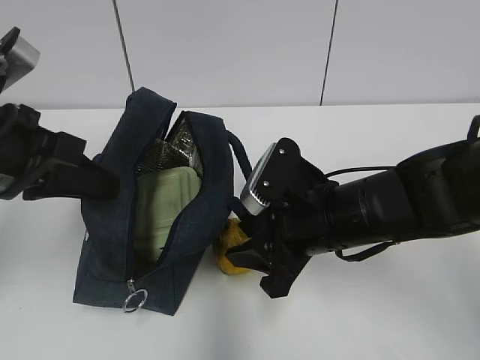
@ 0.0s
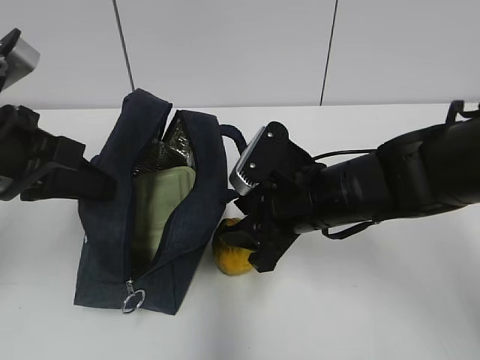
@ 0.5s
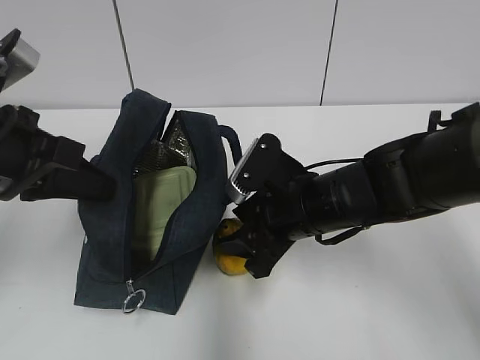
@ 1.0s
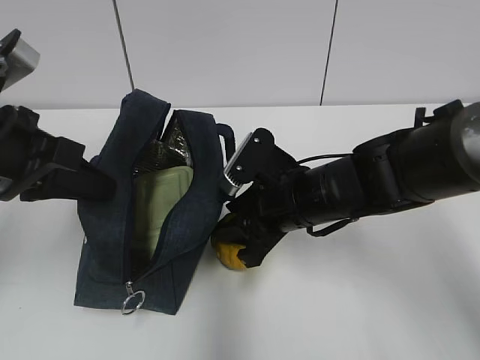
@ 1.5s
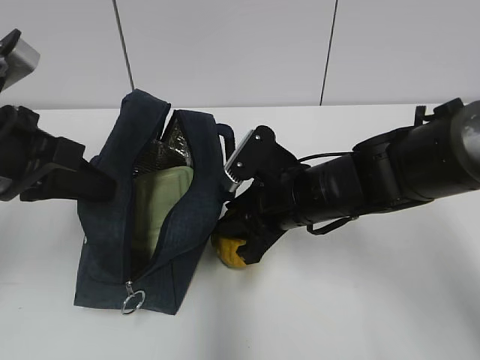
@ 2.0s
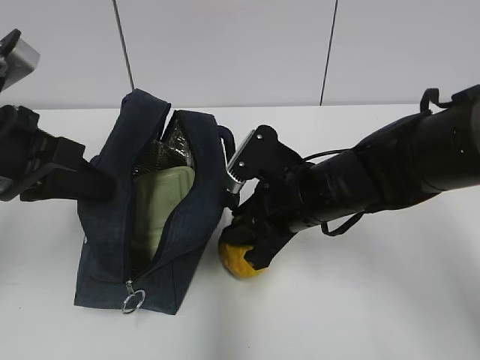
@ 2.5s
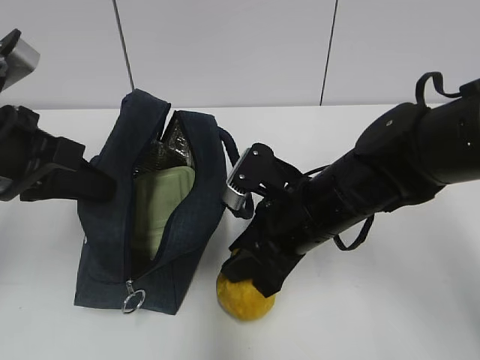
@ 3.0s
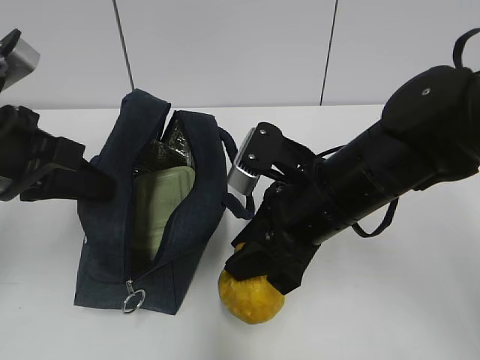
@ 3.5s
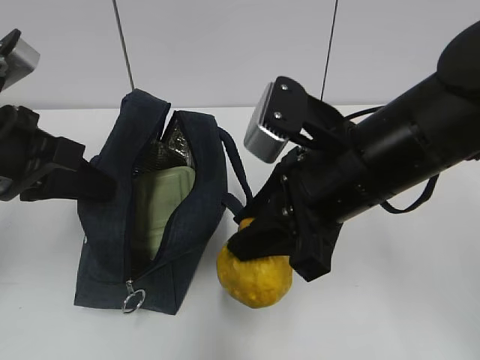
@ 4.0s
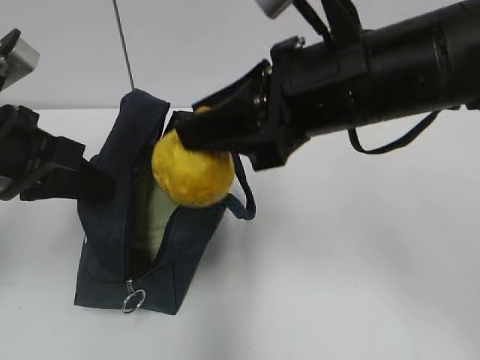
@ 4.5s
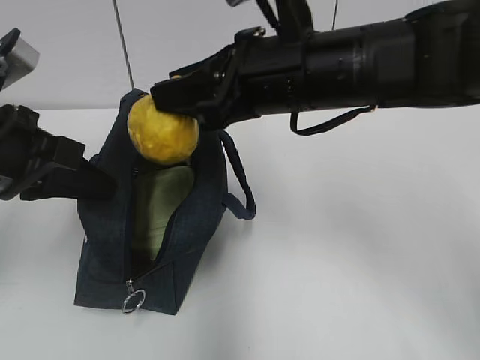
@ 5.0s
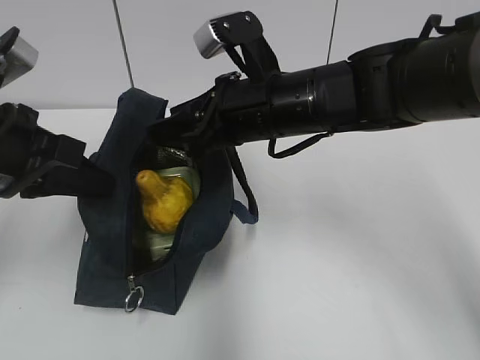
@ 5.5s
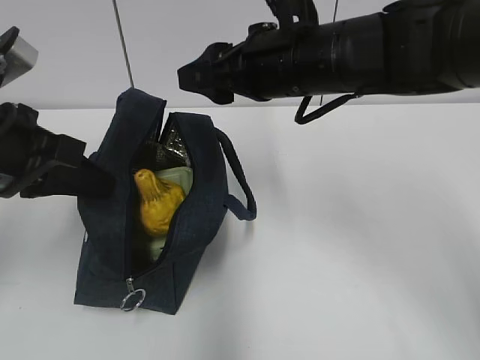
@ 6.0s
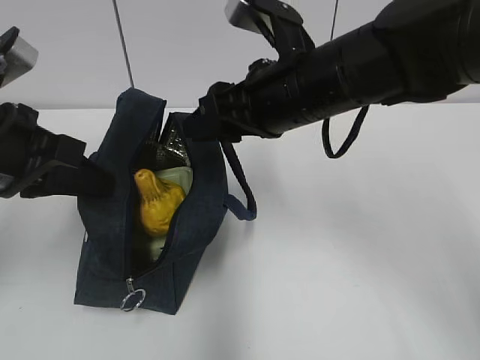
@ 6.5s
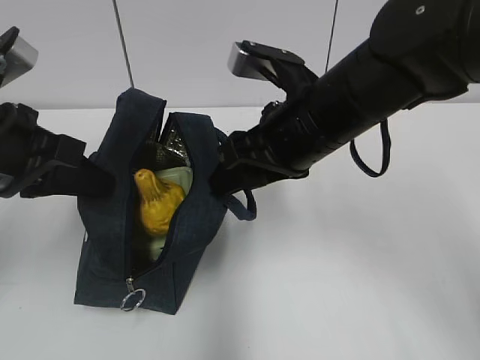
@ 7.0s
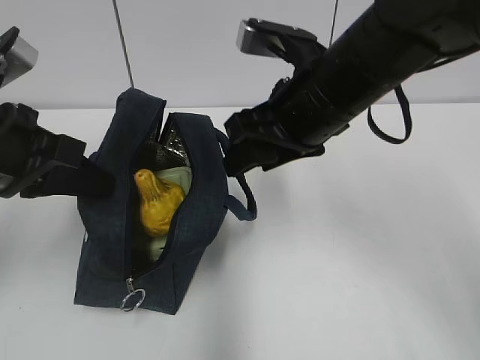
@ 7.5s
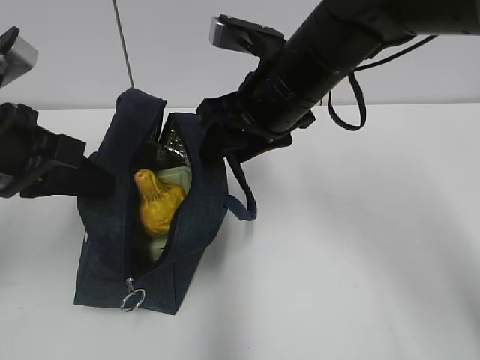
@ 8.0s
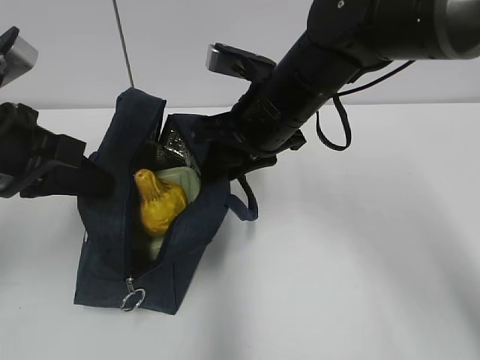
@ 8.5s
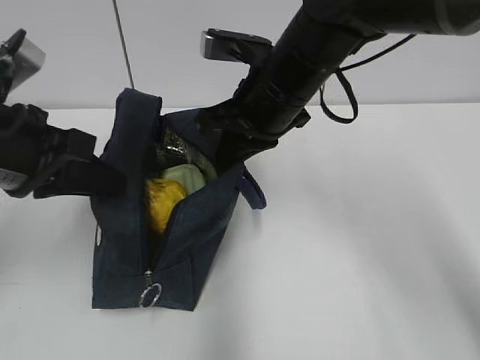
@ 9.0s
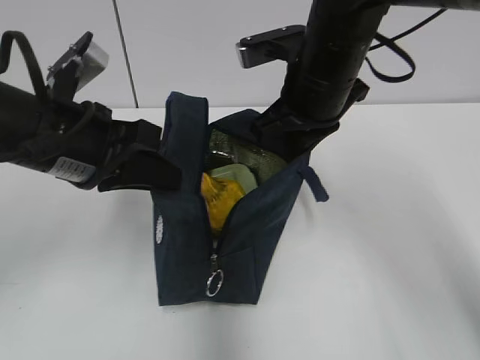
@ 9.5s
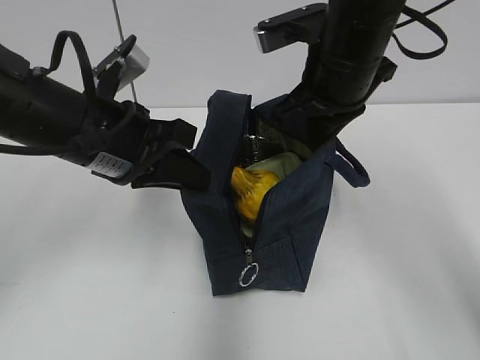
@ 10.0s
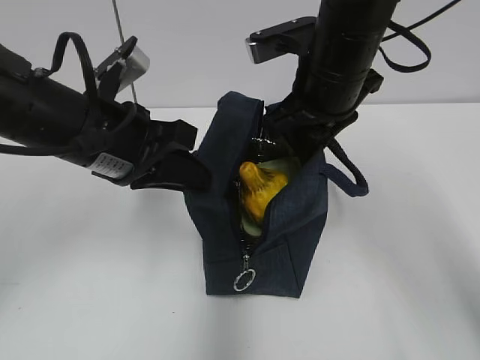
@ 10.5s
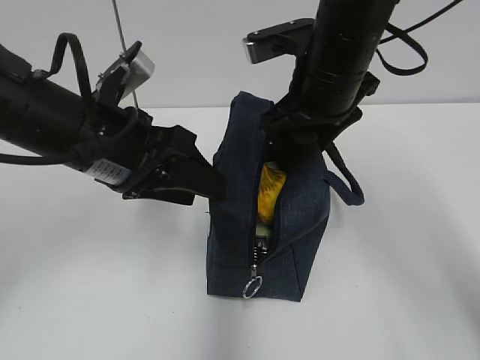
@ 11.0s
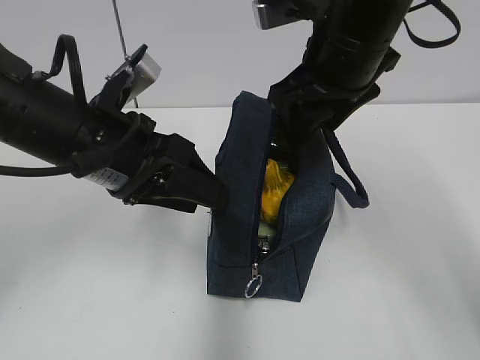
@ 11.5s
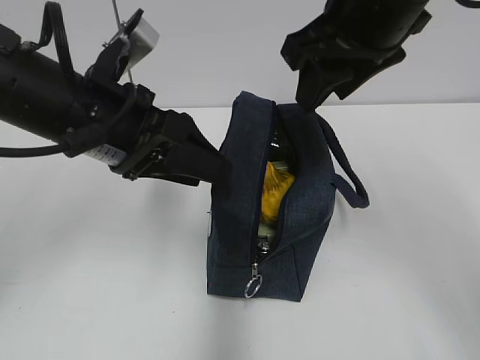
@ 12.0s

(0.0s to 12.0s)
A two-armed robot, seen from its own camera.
Step, 0.0s - 2.0s: Grab the pear with your right hand.
Step, 6.0s - 9.0s: Grab the lunch bag with your right hand.
Step, 9.5s - 10.5s: Move the lunch bag to the right.
0.0s - 2.0s: The right gripper changes place by approximately 5 cm.
2.0s - 4.0s: The right gripper shifts roughly 15 cm upward and backward.
4.0s - 6.0s: The right gripper is displaced forward by about 10 cm.
8.0s - 10.0s: The right gripper ends up some 5 cm from where it was, and closes up. Meanwhile the left gripper is displaced to the right by some 10 cm.
10.0s - 12.0s: The left gripper opens; the right gripper goes roughly 5 cm upward, and opens.

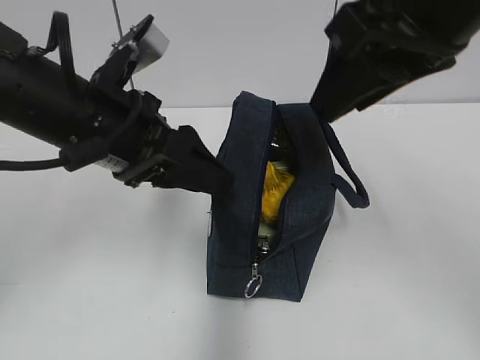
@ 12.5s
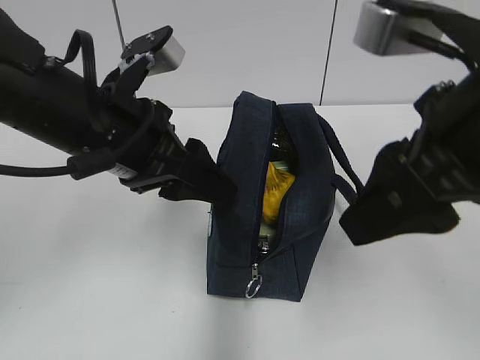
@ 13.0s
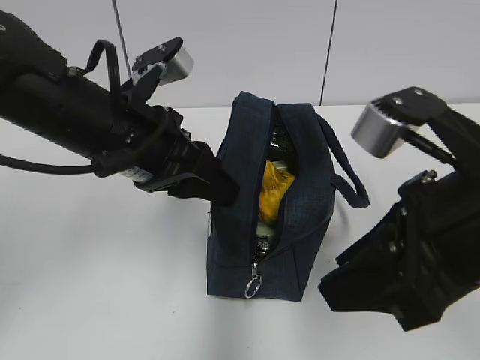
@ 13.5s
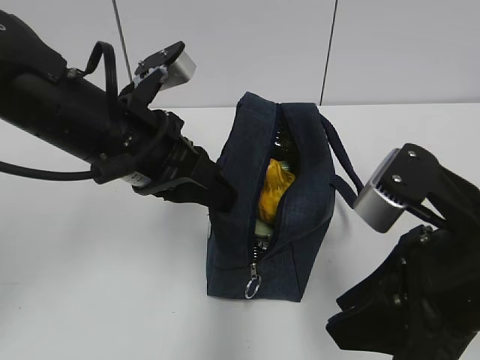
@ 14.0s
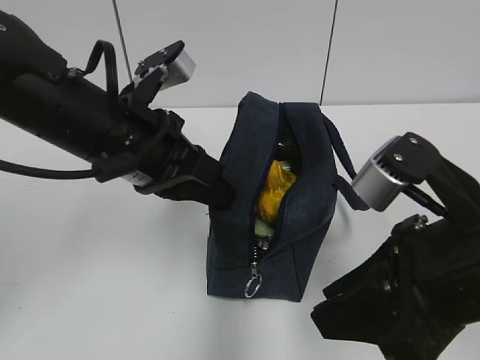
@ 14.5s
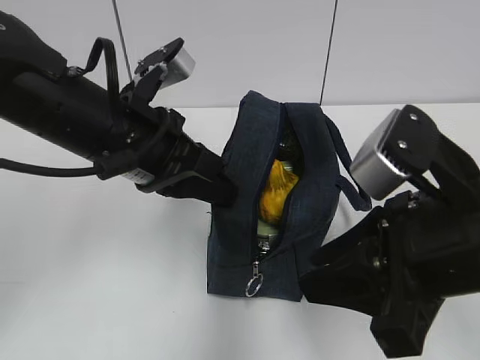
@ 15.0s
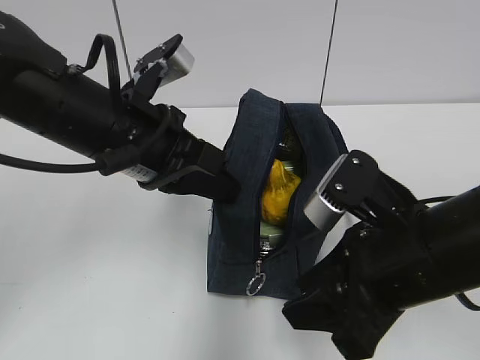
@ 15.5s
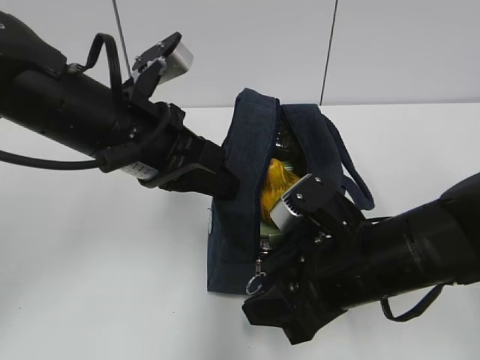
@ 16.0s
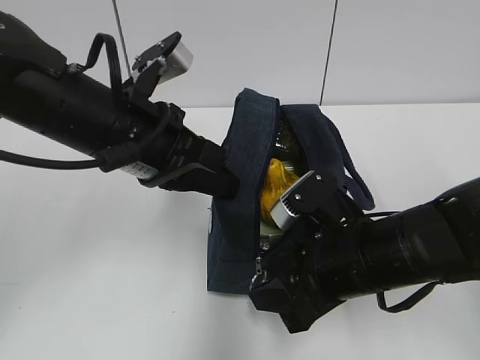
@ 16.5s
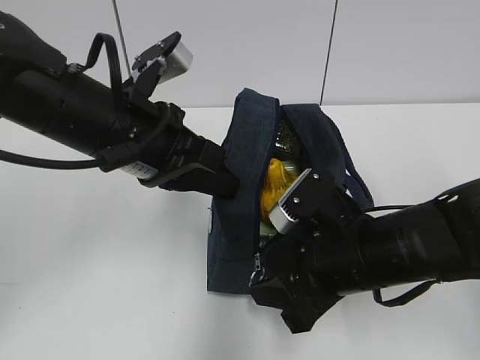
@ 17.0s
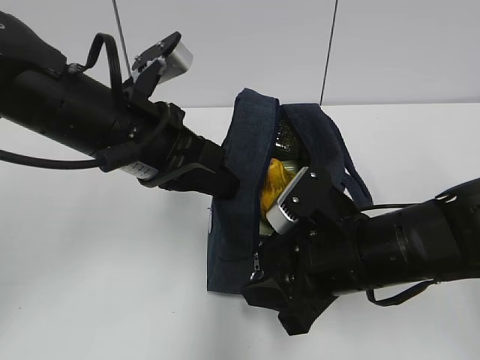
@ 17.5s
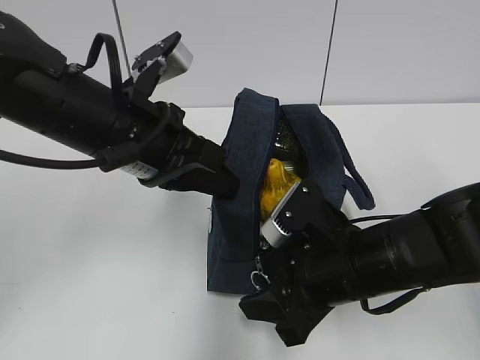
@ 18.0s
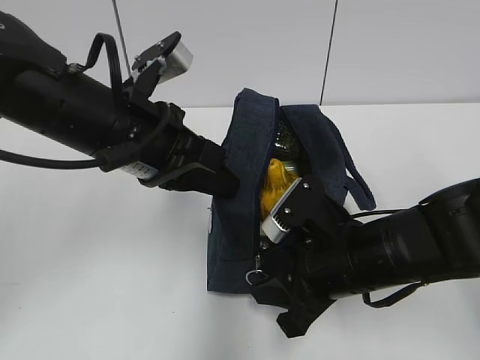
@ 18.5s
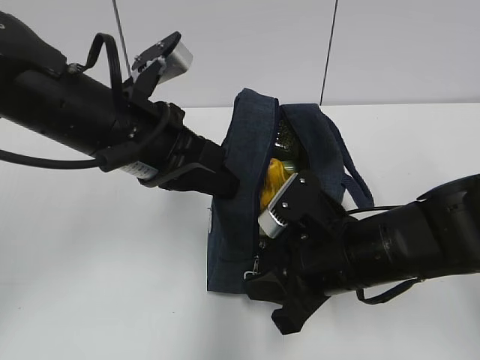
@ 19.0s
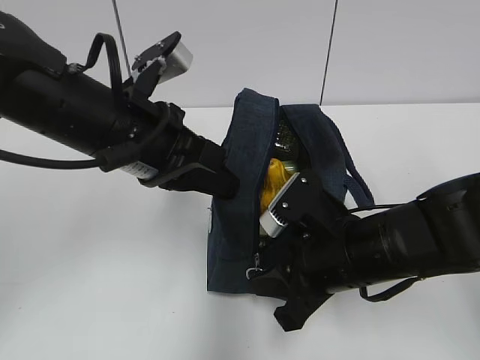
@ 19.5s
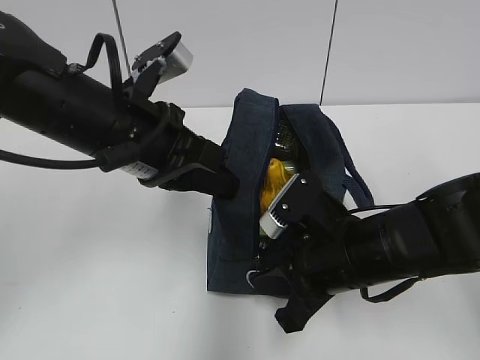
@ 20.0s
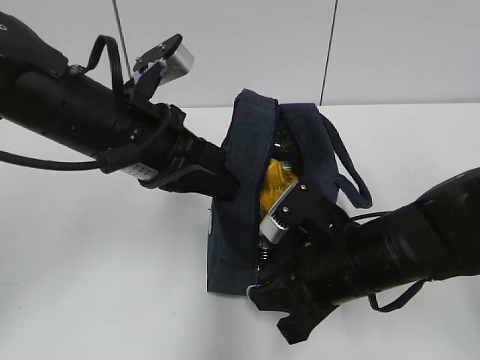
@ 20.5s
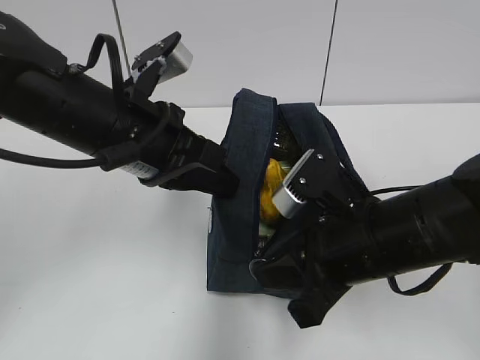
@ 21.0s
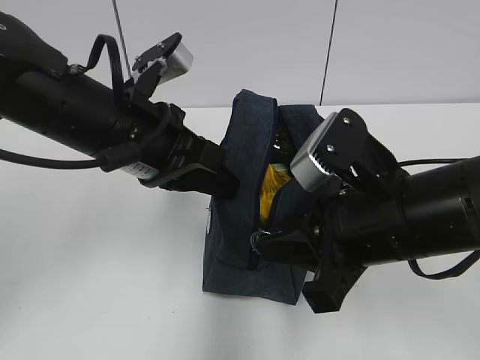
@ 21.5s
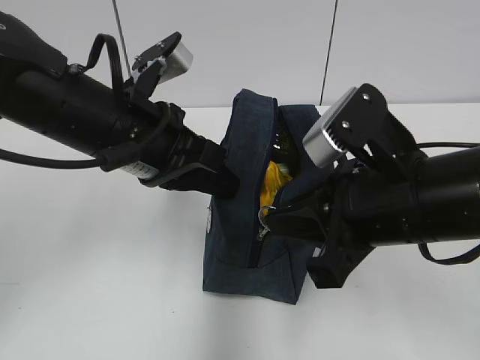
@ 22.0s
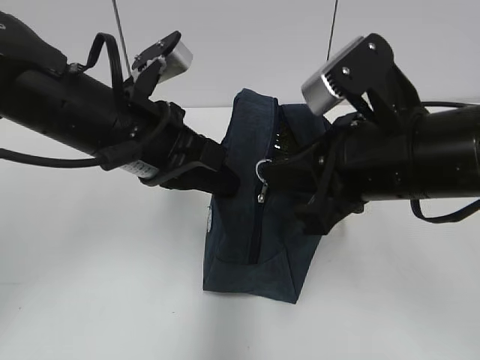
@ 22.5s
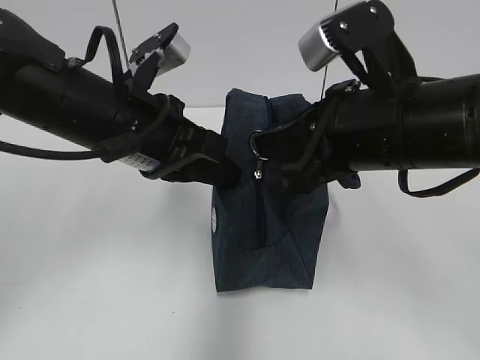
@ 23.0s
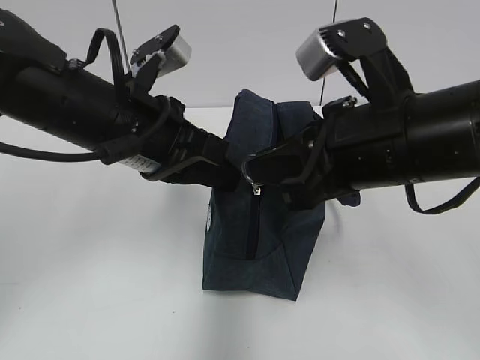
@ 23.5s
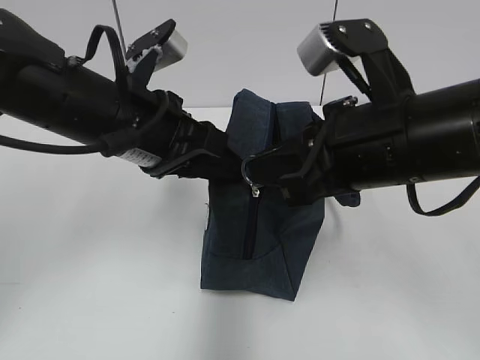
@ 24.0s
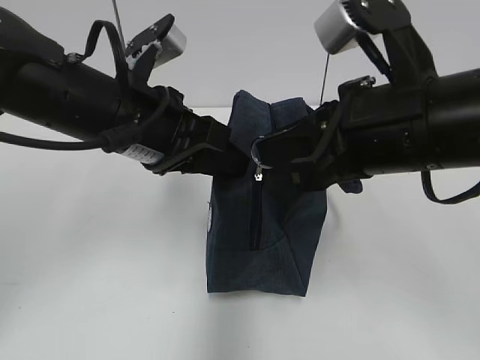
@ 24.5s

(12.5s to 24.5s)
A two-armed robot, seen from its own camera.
12.5s - 14.5s: The left gripper closes up; the right gripper is displaced downward and backward by about 15 cm.
14.5s - 16.5s: The right gripper heads downward and forward, covering roughly 10 cm.
16.5s - 18.5s: The grippers stay close to where they were, moving slightly.
18.5s - 20.5s: The right gripper closes up.
20.5s - 22.5s: The right gripper goes approximately 10 cm upward.
22.5s - 24.5s: The left gripper opens.

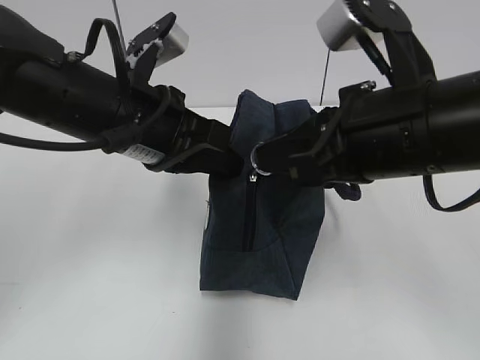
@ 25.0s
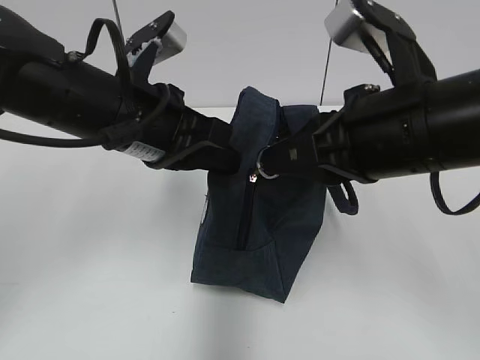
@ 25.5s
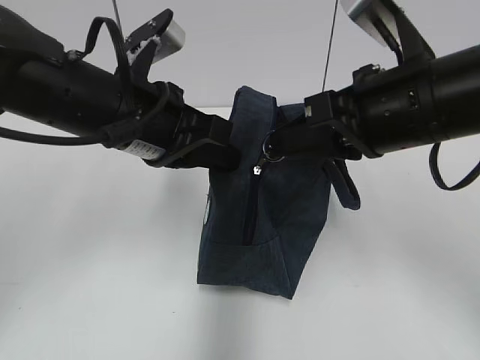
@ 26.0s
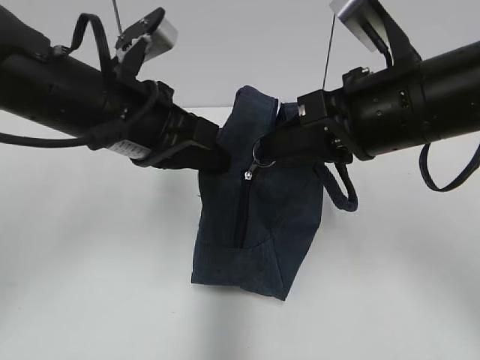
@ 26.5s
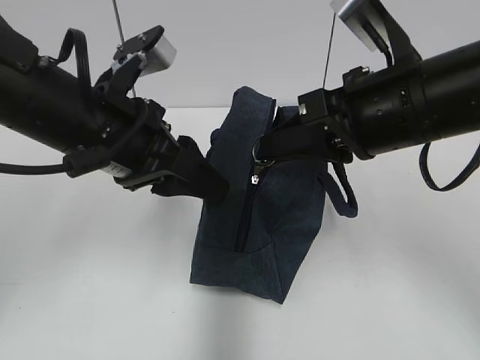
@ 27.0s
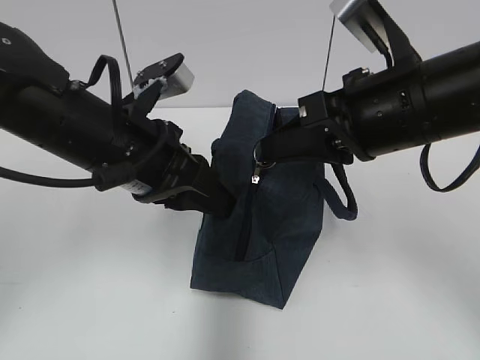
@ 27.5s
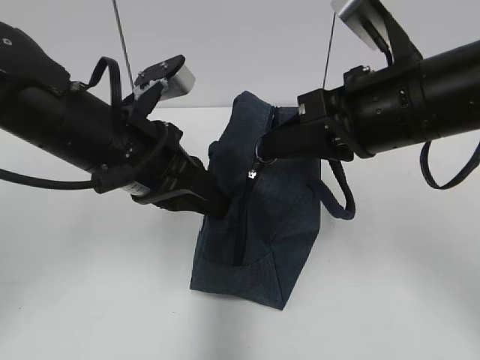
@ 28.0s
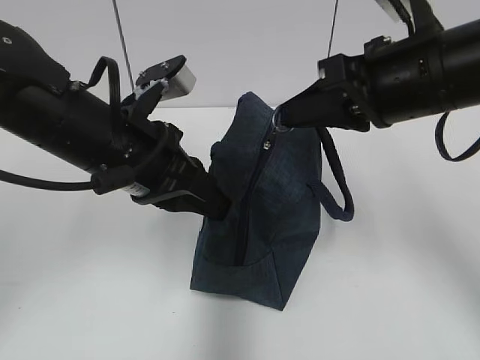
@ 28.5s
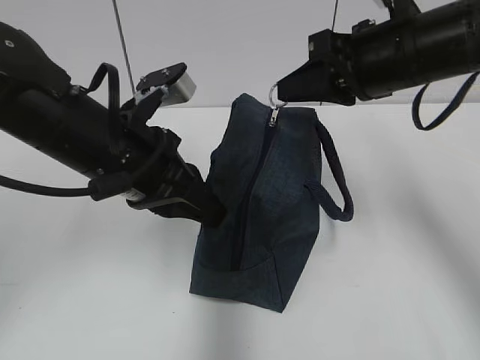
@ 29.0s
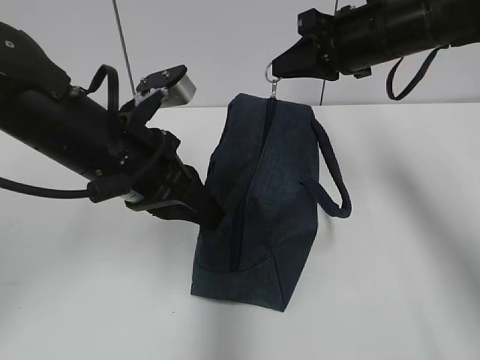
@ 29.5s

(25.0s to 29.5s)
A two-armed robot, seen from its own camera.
25.0s - 27.0s: The left gripper opens.
27.0s - 29.5s: The right gripper heads forward, covering roughly 15 cm, while the left gripper closes its fingers.
